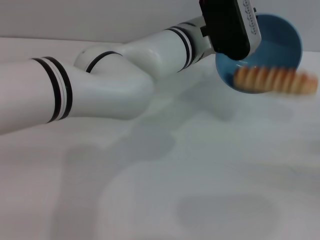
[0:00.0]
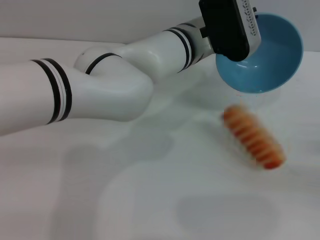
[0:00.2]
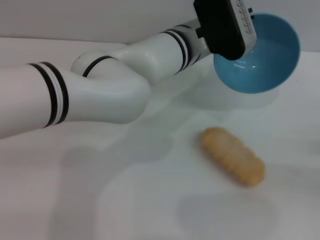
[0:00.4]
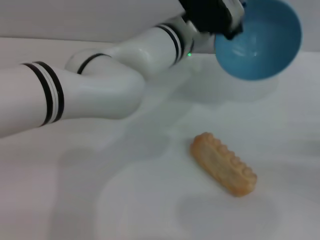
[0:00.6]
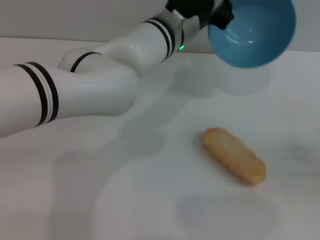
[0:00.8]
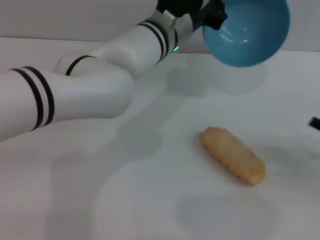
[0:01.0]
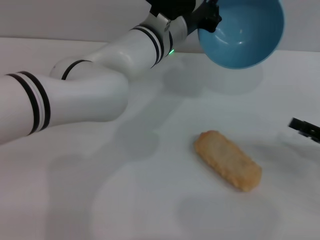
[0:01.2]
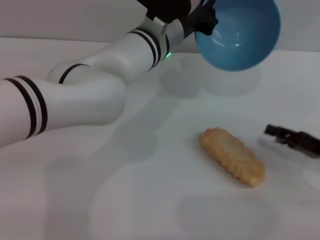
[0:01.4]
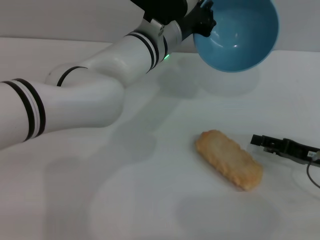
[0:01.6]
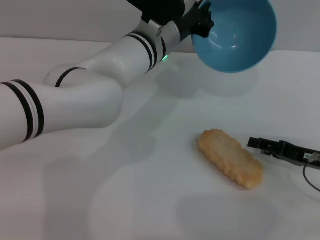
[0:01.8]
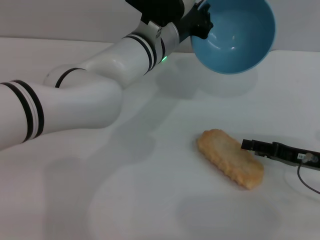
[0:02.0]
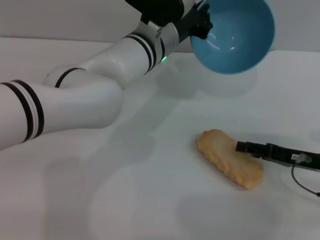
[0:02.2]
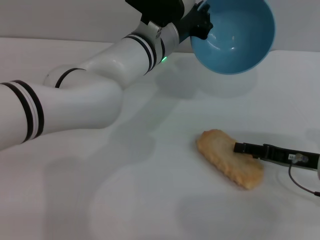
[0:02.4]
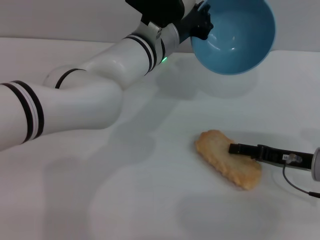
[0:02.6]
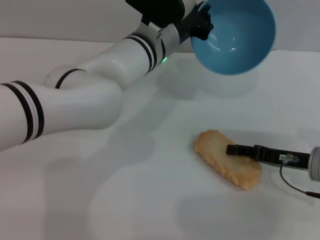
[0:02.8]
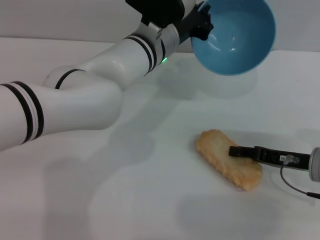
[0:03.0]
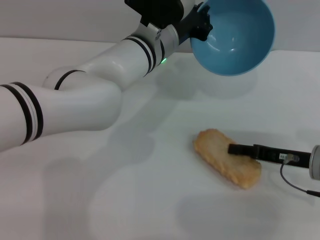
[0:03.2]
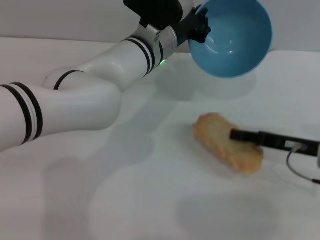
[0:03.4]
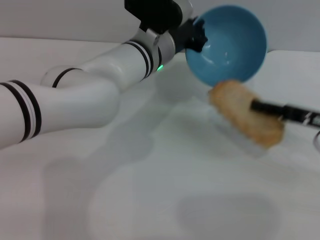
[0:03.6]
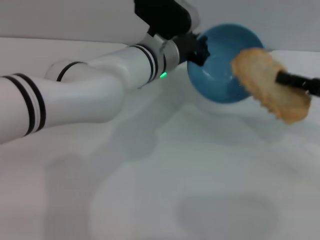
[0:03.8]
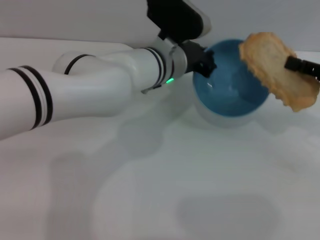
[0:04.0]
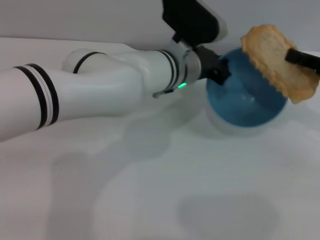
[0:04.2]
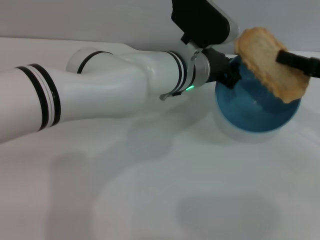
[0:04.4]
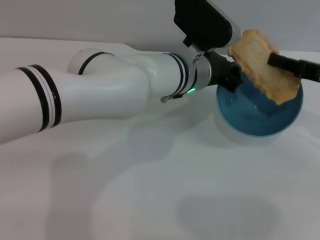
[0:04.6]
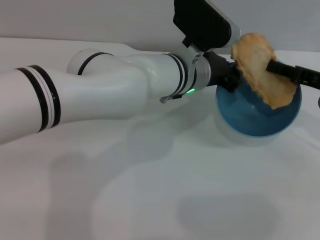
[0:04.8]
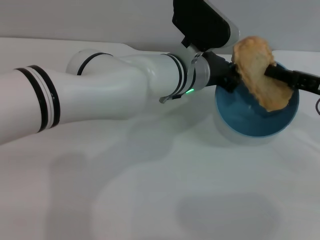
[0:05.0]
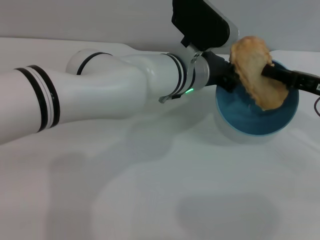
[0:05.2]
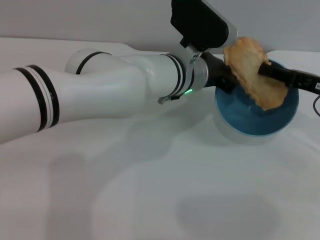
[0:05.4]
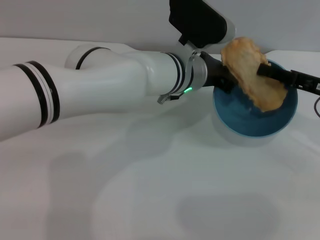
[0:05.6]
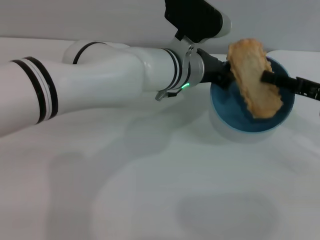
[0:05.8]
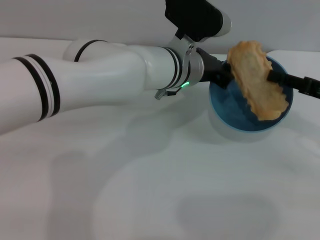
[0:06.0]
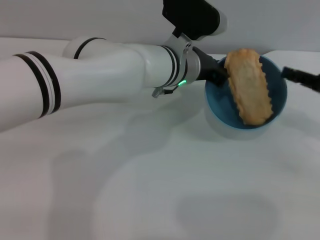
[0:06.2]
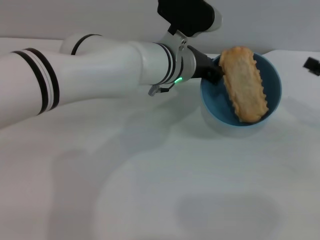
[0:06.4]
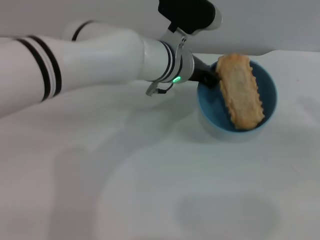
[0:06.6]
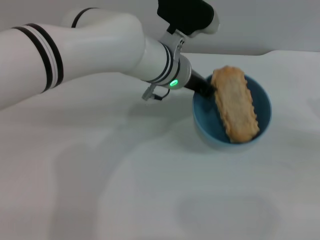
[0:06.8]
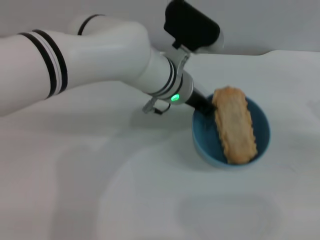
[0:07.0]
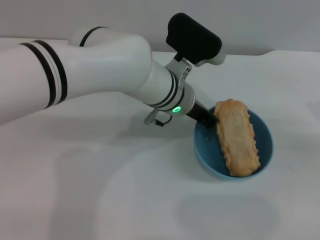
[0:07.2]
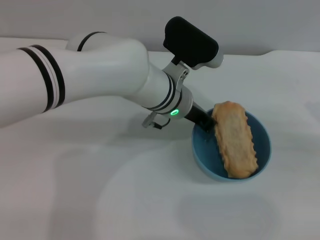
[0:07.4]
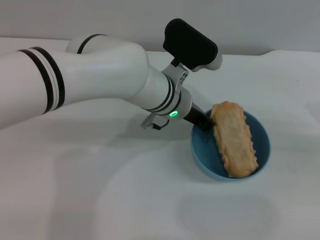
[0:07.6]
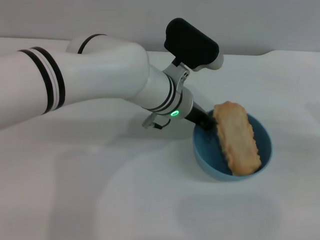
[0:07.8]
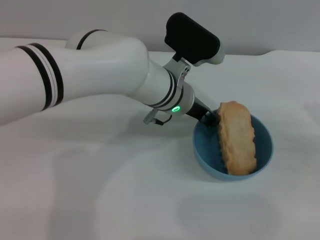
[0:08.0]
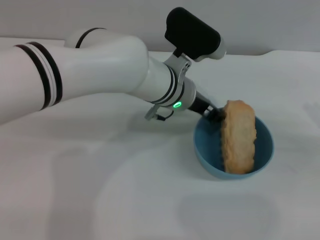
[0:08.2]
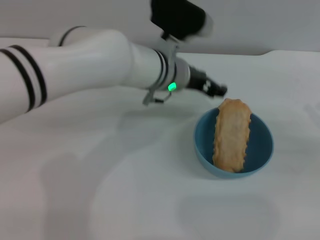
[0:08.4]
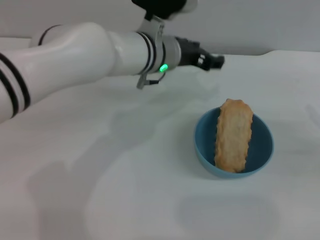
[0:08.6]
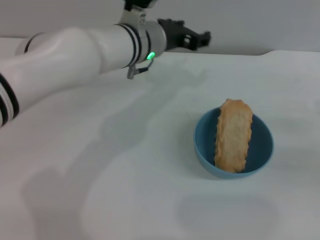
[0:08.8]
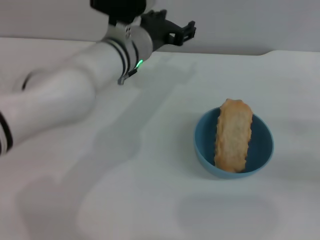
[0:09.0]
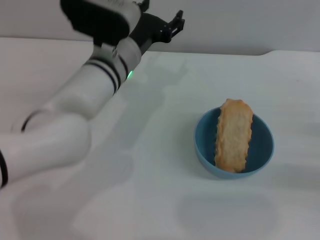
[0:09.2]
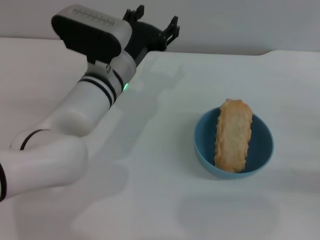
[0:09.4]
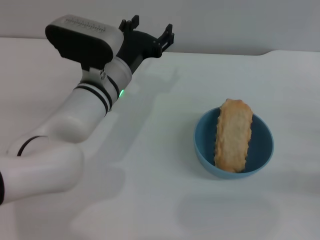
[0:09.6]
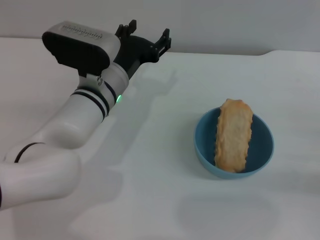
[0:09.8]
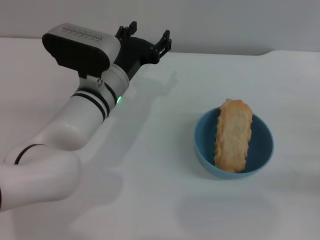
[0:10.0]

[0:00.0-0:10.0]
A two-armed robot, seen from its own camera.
Task of the whole recording: put the bread into the blue bowl and pour it out repeatedly.
Step, 0:00.6 to 0:03.6: Pick up the bread with the right gripper.
Step, 0:03.8 to 0:06.2: Place the bread into the bowl.
Step, 0:06.6 to 0:08.6: Place the bowl on the table.
0:00.0 to 0:01.4: The right gripper goes some 10 cm to the left.
0:01.4 to 0:02.8: The right gripper heads to the left, covering roughly 5 cm.
0:02.8 to 0:04.2: The right gripper travels upward and to the right by roughly 15 cm, and closes up.
0:04.2 to 0:05.8: The right gripper opens its fingers.
0:05.8 to 0:07.2: The right gripper goes some 10 cm to the right.
0:07.2 to 0:08.6: The left gripper changes place by about 5 cm, and opens up.
0:08.6 to 0:10.0: The left gripper is displaced to the left, downward and backward by about 10 cm; the right gripper shifts by about 5 cm.

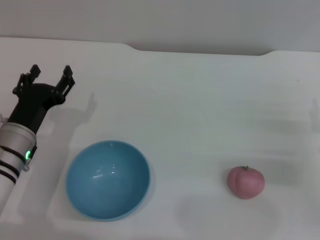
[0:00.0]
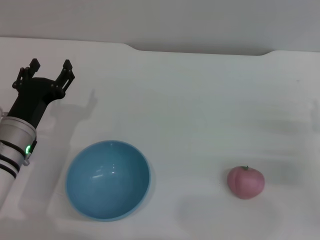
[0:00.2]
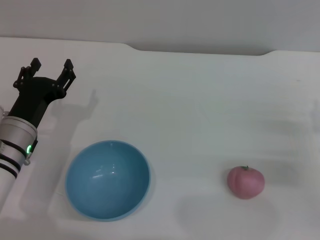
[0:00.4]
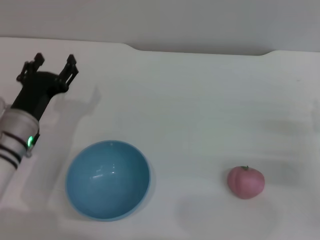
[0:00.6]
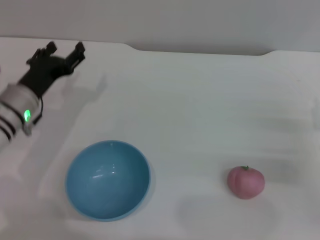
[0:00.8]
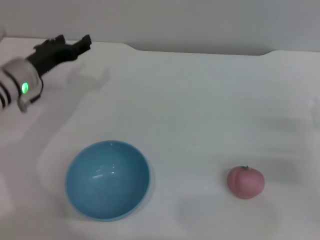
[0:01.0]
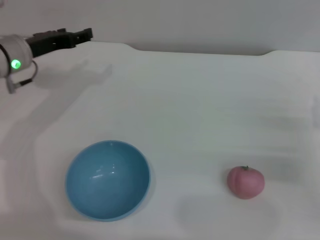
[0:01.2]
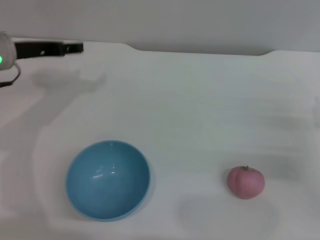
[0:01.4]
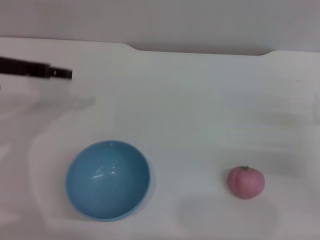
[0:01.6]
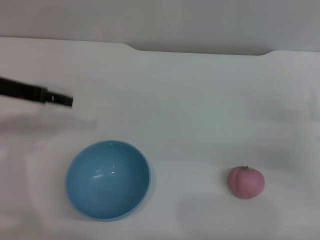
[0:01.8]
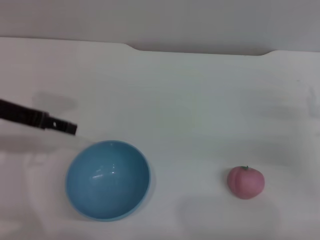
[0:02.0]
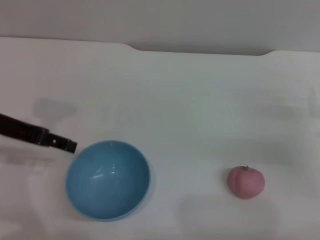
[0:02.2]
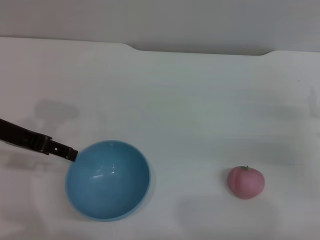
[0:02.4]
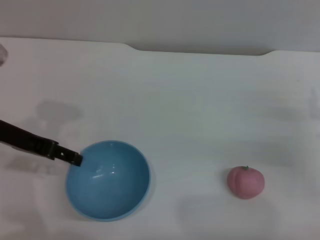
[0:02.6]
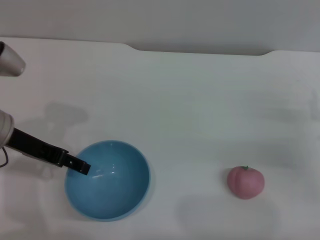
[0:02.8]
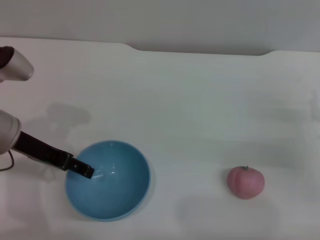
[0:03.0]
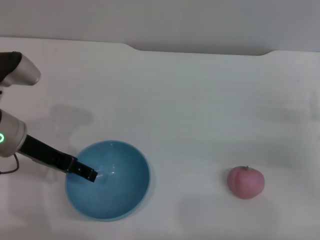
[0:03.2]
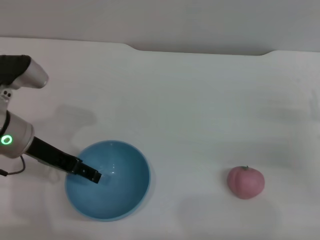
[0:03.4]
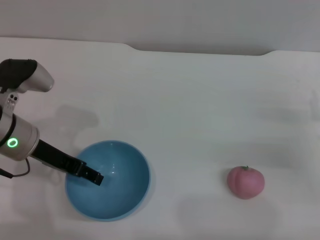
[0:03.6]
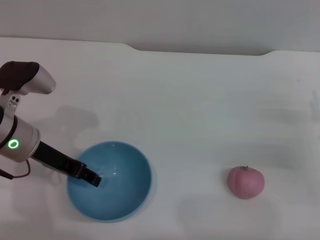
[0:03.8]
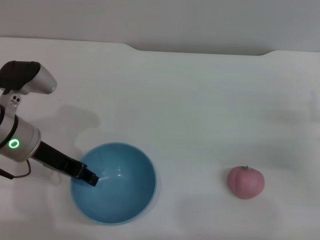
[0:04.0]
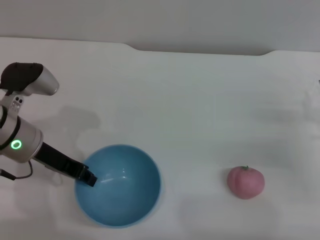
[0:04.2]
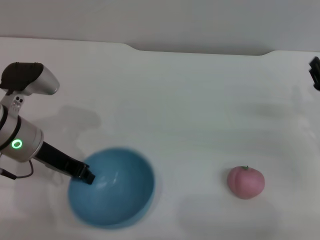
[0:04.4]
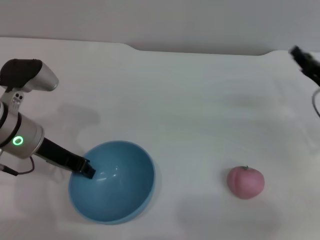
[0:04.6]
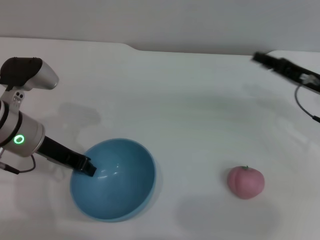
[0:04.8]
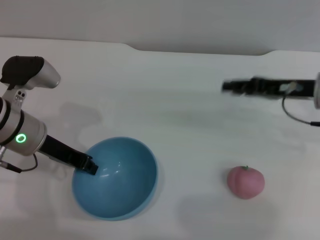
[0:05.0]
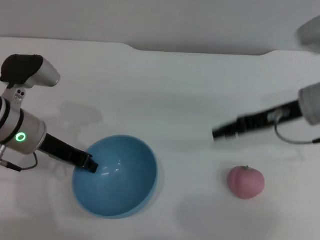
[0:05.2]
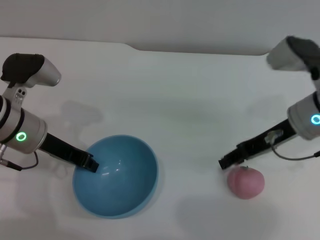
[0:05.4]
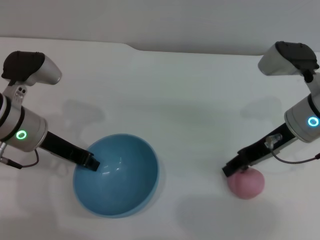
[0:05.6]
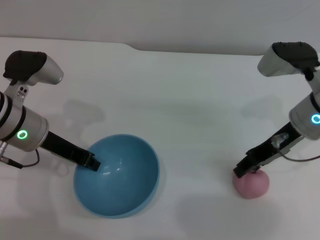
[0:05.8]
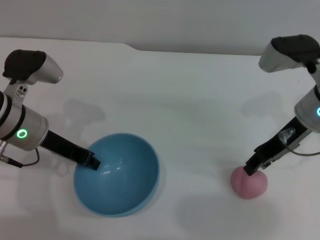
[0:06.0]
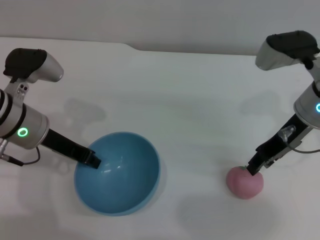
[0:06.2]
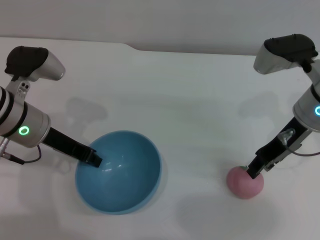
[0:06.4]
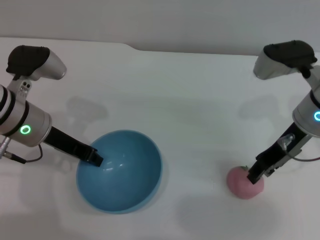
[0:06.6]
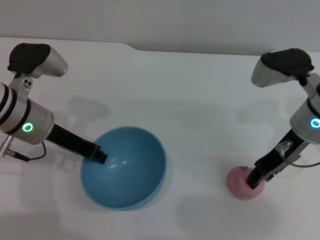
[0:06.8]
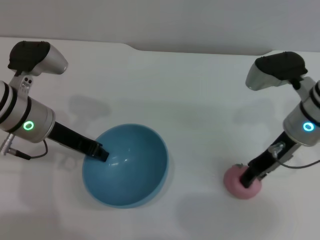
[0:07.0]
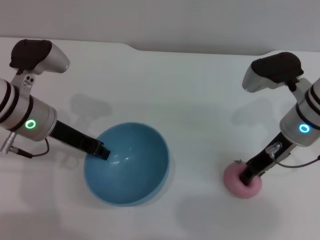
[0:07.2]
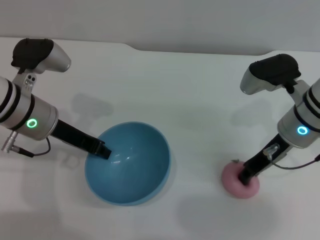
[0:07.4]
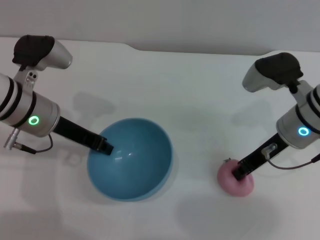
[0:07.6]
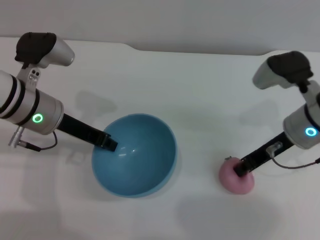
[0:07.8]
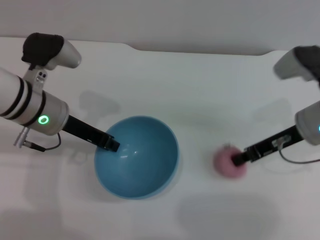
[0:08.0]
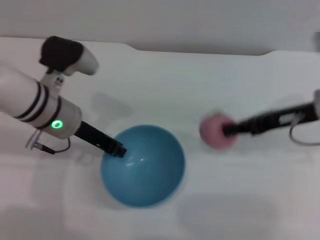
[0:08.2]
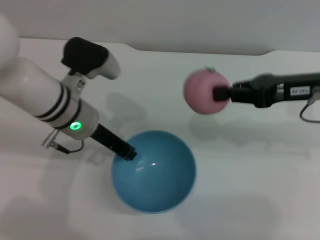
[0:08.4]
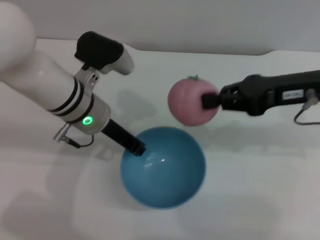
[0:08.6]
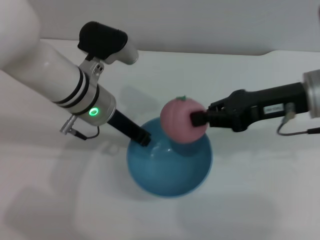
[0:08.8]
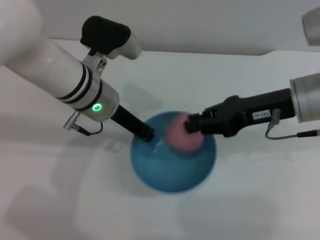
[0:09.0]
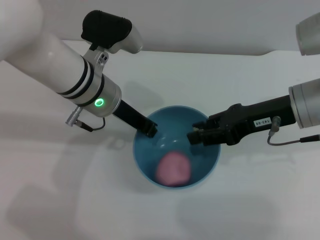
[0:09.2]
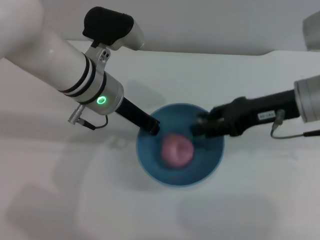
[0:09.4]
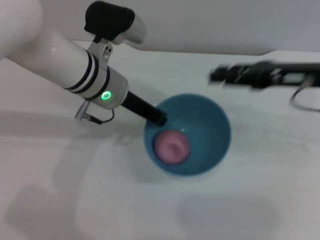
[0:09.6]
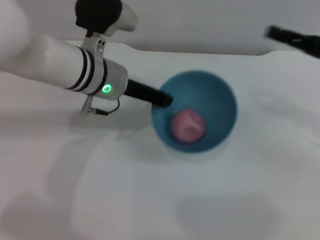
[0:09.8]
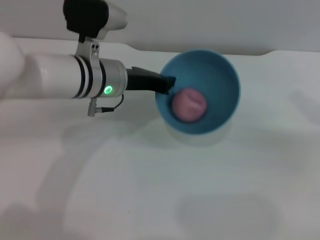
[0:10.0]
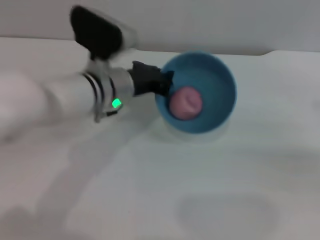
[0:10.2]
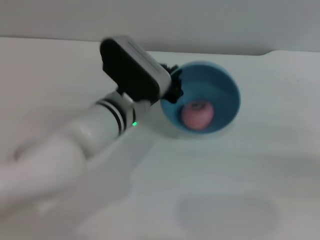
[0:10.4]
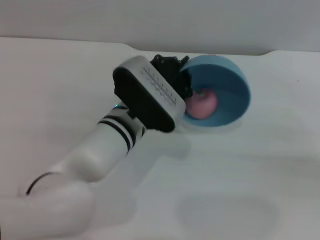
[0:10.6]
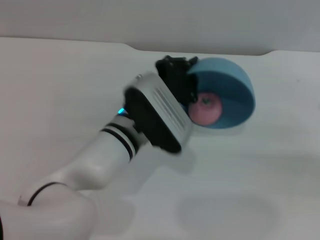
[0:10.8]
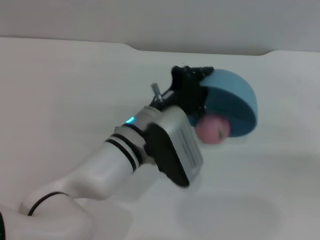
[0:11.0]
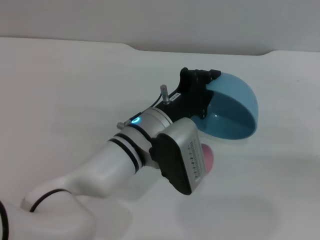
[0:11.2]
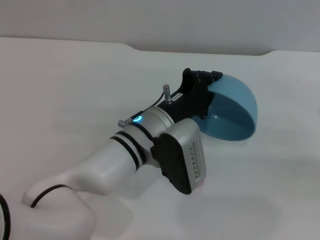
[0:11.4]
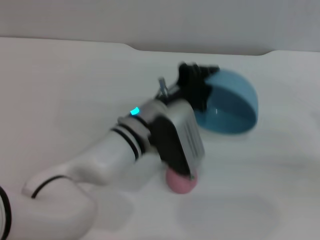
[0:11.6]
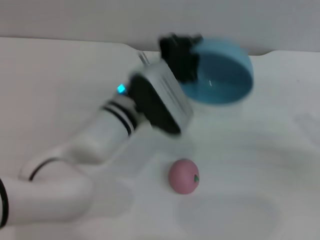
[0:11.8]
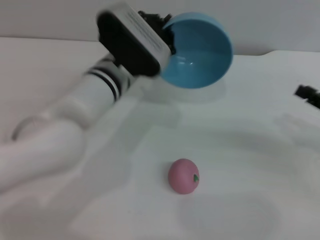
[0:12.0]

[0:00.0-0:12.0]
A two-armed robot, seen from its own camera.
Task of the whole recording: put the peach into the blue bowl and pour it out repeatedly.
Step, 0:00.0 to 0:07.4: Pick up the bowl with the left gripper.
Step, 0:07.6 to 0:08.2: Pick up the peach with the right gripper.
Step, 0:08.4 to 0:09.2: Place the peach into the bowl.
Step, 0:09.4 to 0:11.4: Pour the peach out of bowl.
0:00.0 to 0:01.6: The left gripper travels upward and forward by approximately 15 cm.
0:01.6 to 0:03.0: The left gripper moves backward, about 5 cm.
0:03.0 to 0:04.4: The left gripper closes its fingers.
0:04.4 to 0:06.0: The right gripper is displaced upward and to the left by some 15 cm.
0:07.6 to 0:09.0: The left gripper travels to the right by about 10 cm, while the right gripper heads upward, covering some 5 cm.
0:09.0 to 0:10.4: The right gripper goes about 20 cm to the right and backward, and opens, while the left gripper moves approximately 5 cm.
0:10.4 to 0:12.0: The right gripper shifts by about 5 cm.
